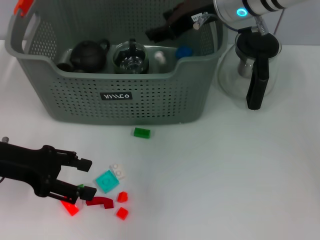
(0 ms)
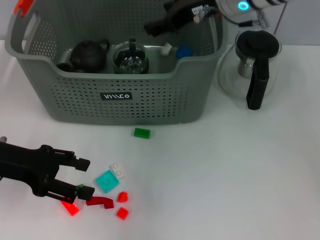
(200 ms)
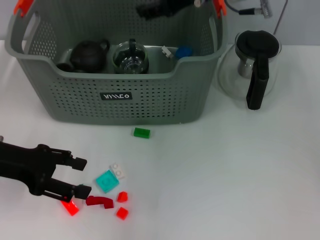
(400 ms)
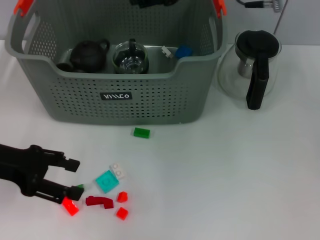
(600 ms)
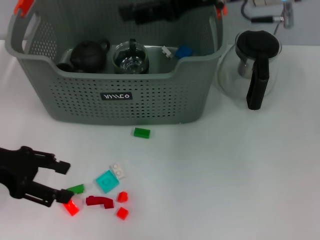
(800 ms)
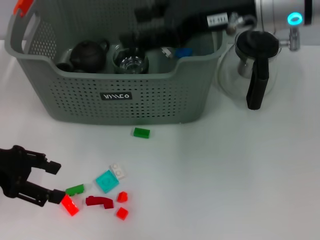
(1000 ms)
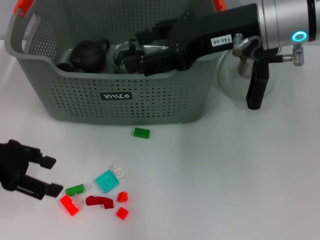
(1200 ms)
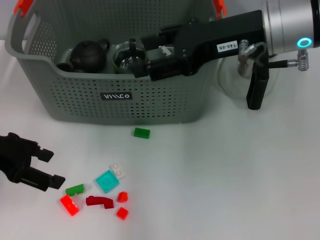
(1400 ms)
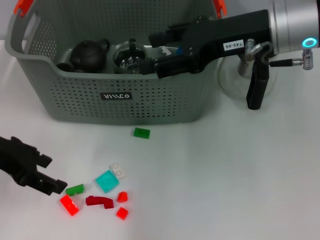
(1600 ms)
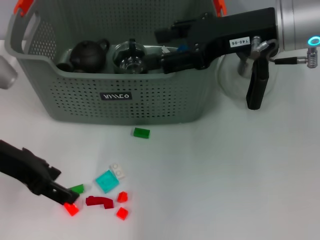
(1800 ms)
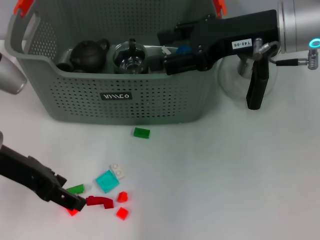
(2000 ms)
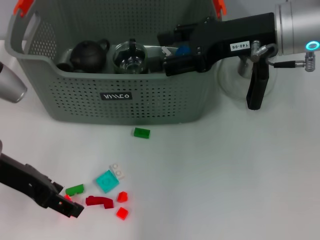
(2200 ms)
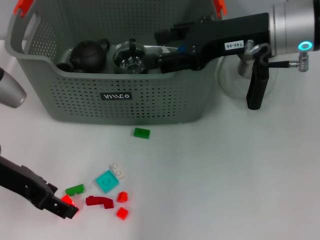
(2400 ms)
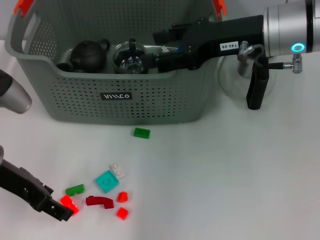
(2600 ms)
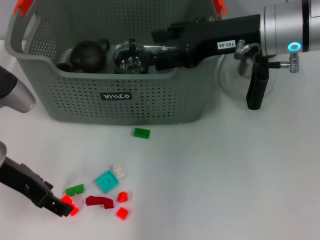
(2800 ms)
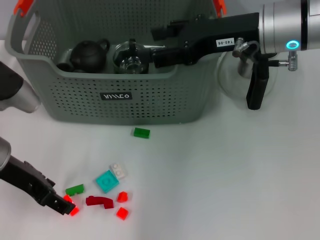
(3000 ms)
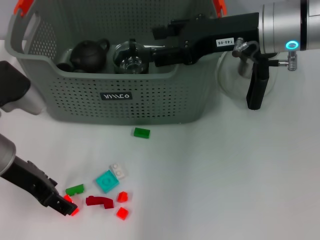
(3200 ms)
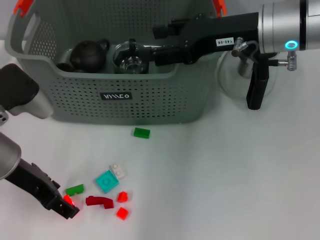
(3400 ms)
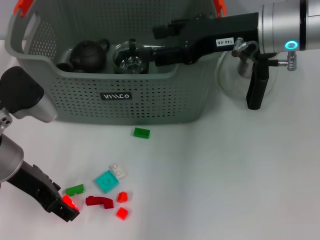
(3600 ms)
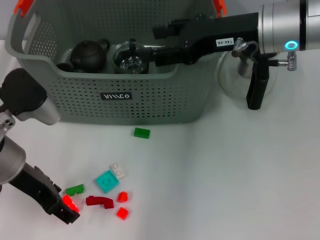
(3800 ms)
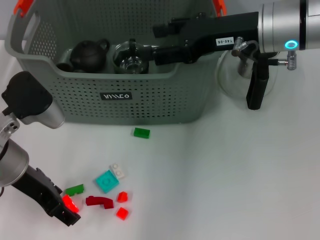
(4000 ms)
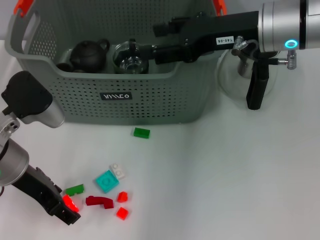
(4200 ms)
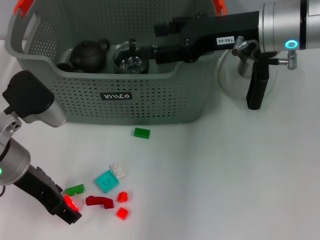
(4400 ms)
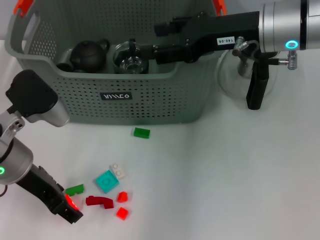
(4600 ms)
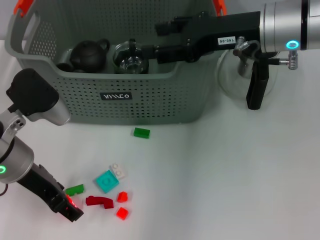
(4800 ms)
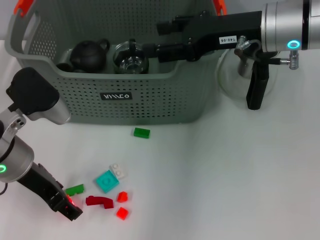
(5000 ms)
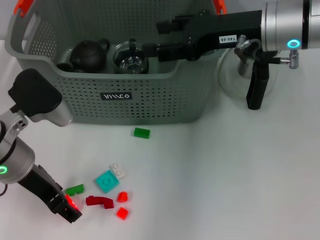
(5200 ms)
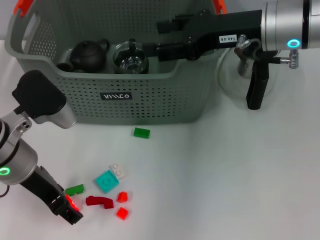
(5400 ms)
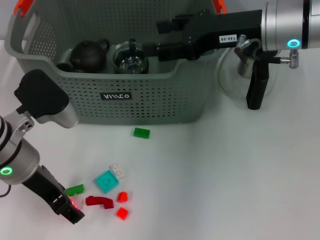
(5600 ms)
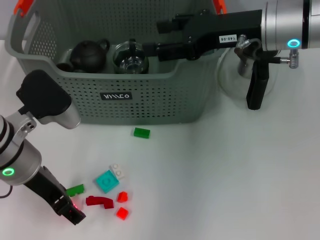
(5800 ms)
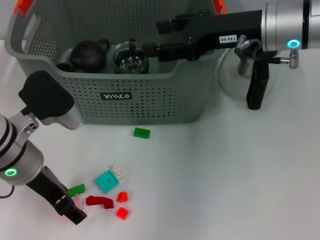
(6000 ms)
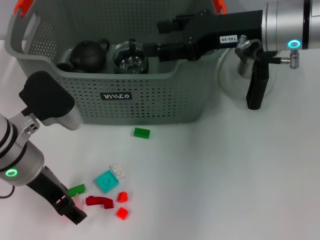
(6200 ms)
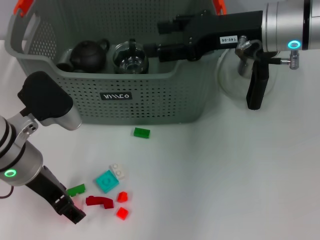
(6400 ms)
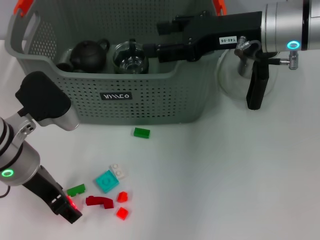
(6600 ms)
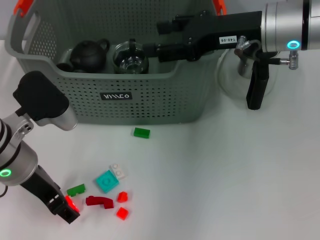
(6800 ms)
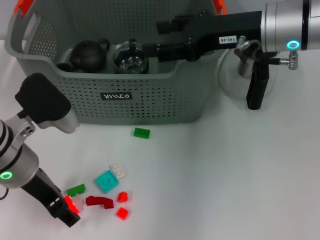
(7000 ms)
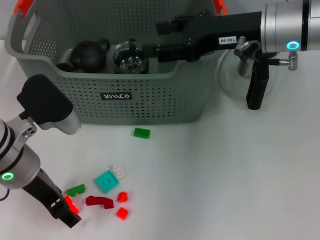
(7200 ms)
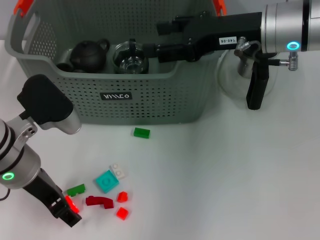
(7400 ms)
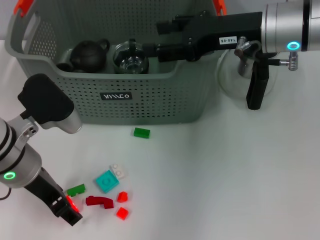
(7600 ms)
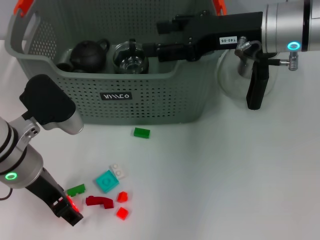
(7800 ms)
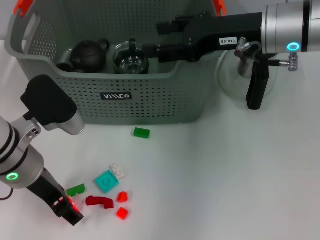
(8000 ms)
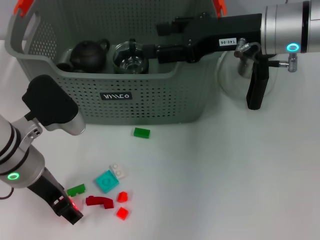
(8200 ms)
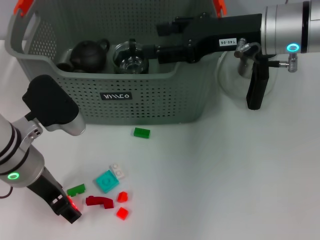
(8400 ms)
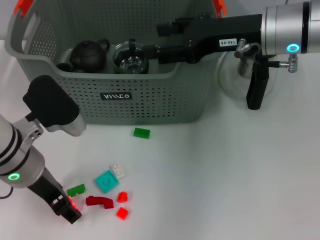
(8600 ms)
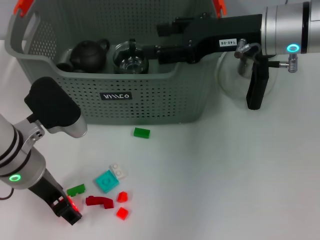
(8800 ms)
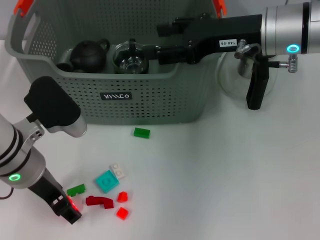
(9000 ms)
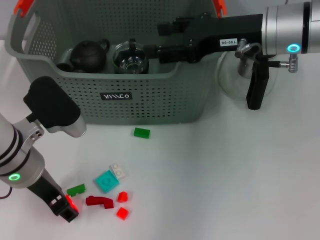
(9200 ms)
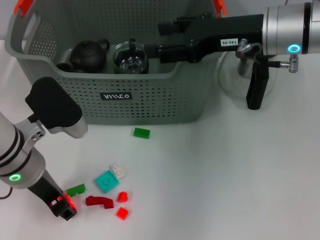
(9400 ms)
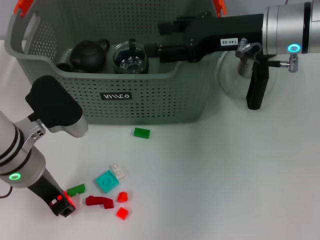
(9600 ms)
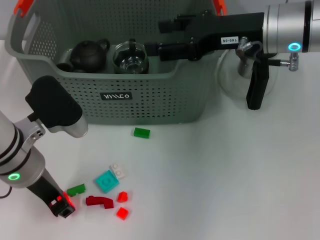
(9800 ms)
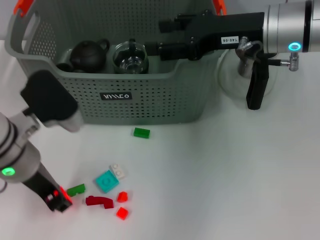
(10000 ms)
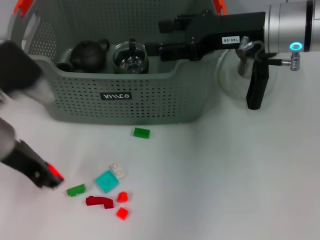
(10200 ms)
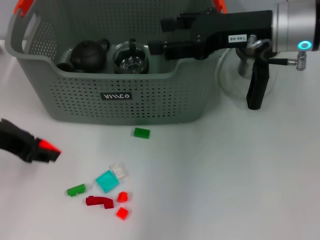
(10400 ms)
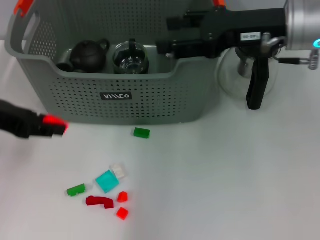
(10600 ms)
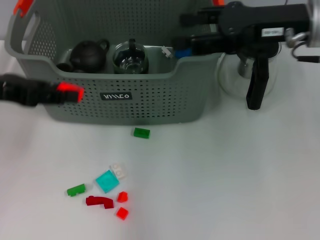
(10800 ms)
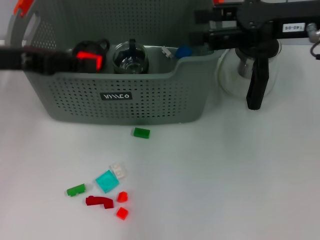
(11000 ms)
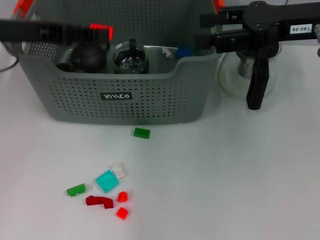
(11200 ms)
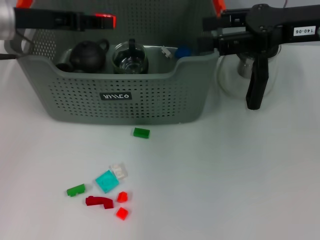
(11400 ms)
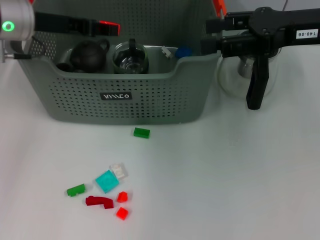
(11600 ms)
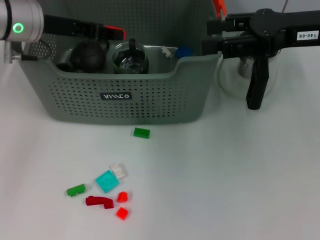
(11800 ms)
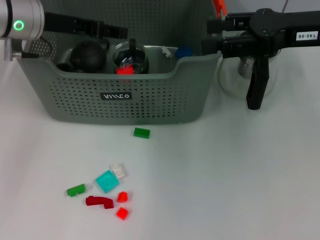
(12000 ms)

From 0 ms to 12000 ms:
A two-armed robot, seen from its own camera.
Task of the whole recording: pick up the teacup on the table and place it into the storage bin, pick up the block on the table and place it into the storage bin.
Step, from 400 ms to 10000 ms: Grasp the orange block with left gripper.
From 0 ms to 1600 ms: The left gripper shifts approximately 5 cm upward; the right gripper shifts about 10 cm backward and to the right.
From 1600 ms to 3000 ms: The left gripper changes place by some 5 cm.
From 3000 ms to 6000 ms: The grippers make only small movements.
From 6000 ms to 7600 ms: Both grippers stay put.
From 7600 ms to 9000 ms: Neither gripper changes place.
From 9000 ms to 10400 ms: The left gripper moves upward and to the left, roughly 10 cm, and closes its fingers.
From 10400 ms to 12000 ms: The left gripper travels forward by roughly 15 cm, while the right gripper goes roughly 5 cm to the right.

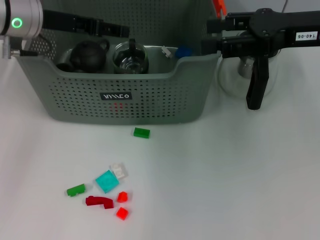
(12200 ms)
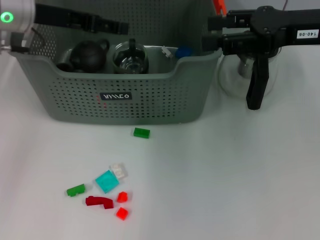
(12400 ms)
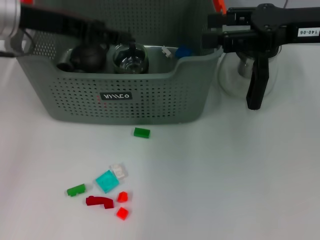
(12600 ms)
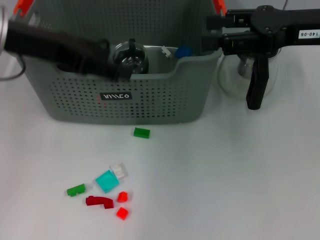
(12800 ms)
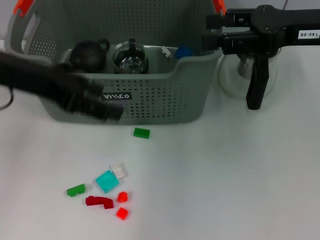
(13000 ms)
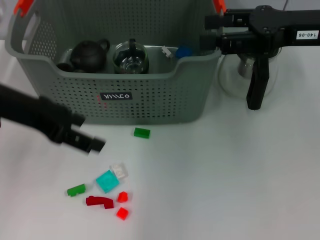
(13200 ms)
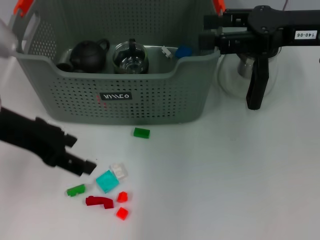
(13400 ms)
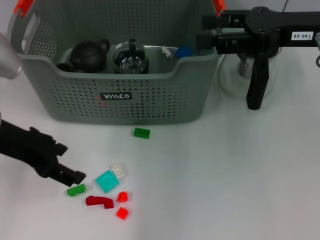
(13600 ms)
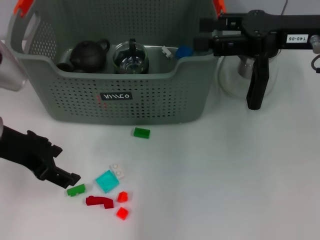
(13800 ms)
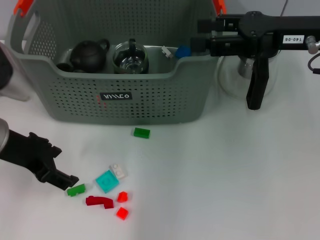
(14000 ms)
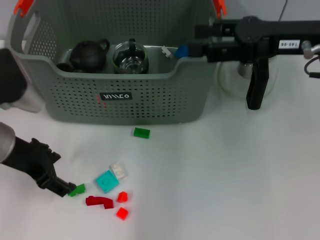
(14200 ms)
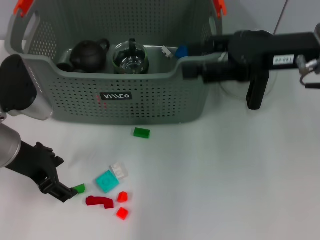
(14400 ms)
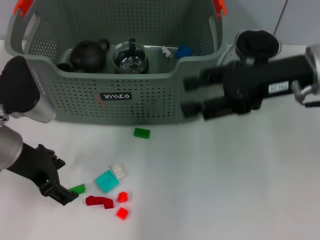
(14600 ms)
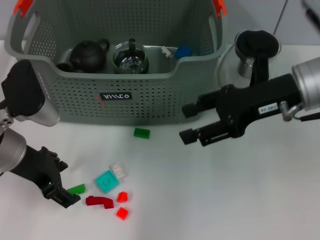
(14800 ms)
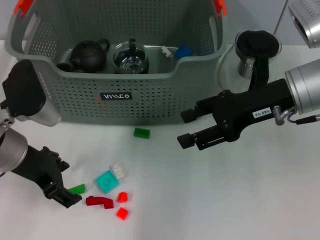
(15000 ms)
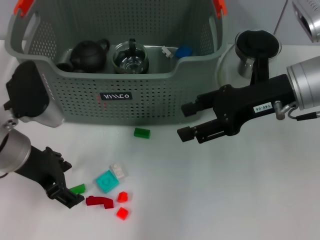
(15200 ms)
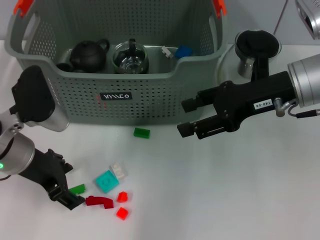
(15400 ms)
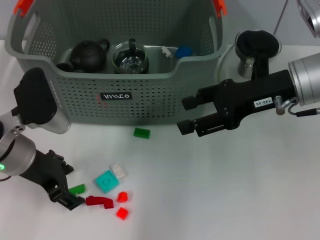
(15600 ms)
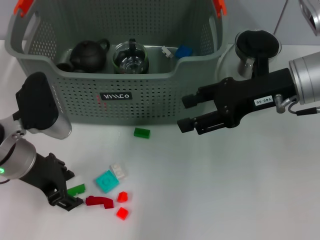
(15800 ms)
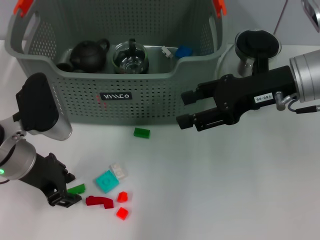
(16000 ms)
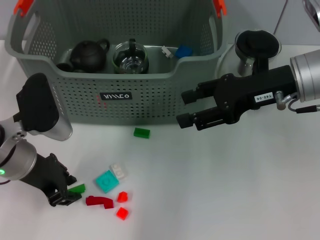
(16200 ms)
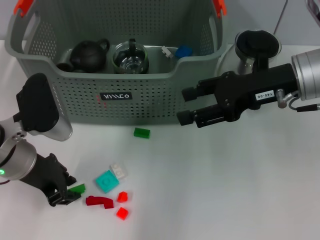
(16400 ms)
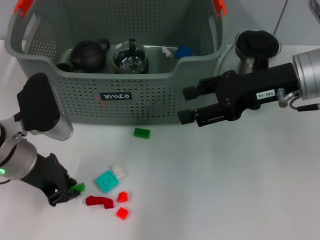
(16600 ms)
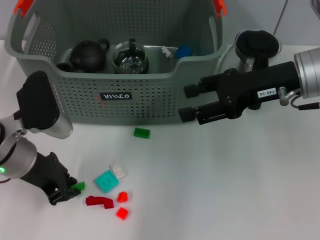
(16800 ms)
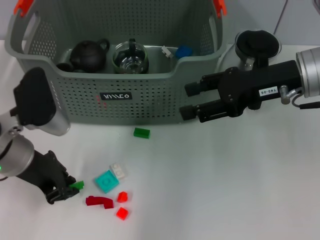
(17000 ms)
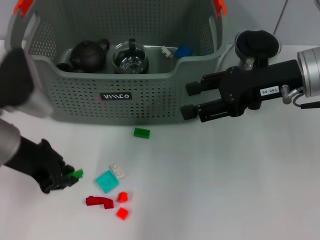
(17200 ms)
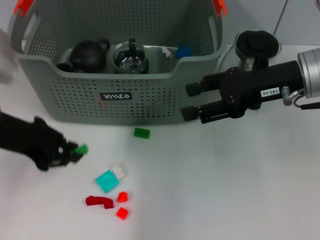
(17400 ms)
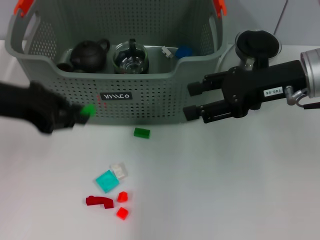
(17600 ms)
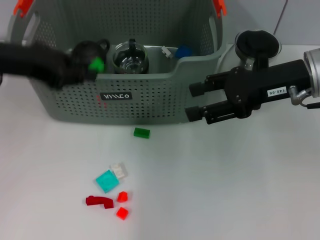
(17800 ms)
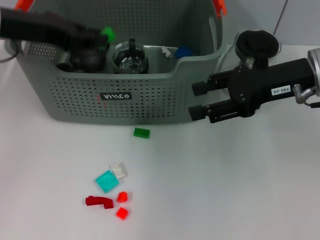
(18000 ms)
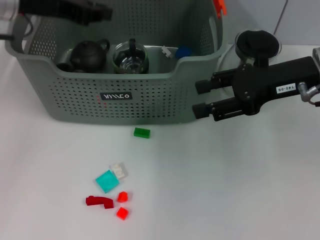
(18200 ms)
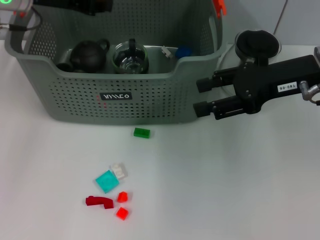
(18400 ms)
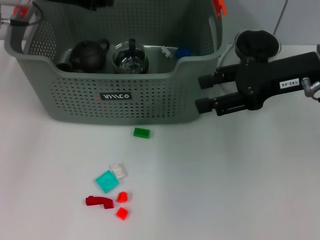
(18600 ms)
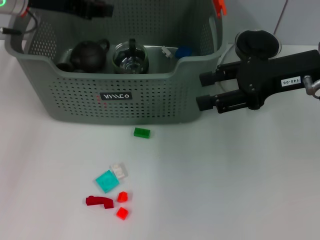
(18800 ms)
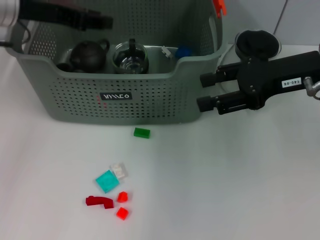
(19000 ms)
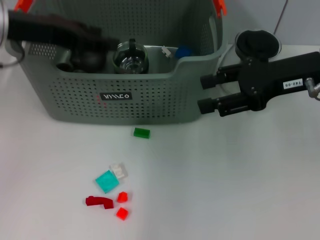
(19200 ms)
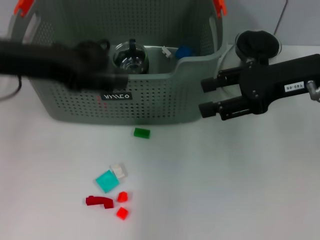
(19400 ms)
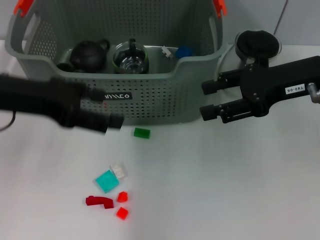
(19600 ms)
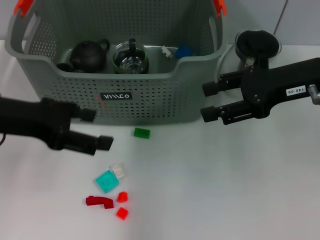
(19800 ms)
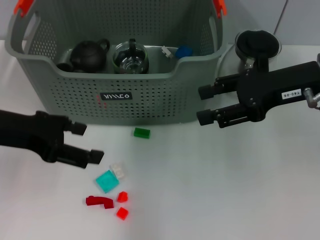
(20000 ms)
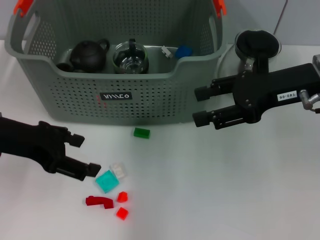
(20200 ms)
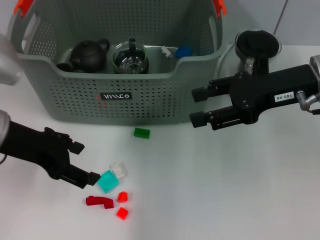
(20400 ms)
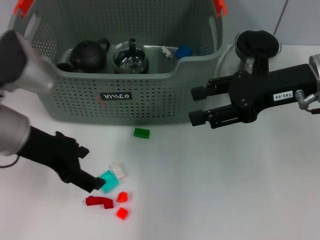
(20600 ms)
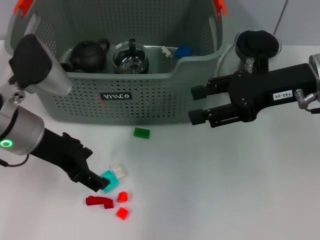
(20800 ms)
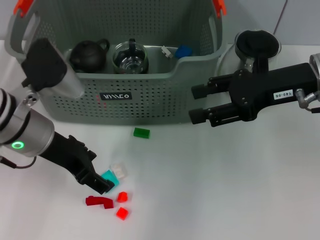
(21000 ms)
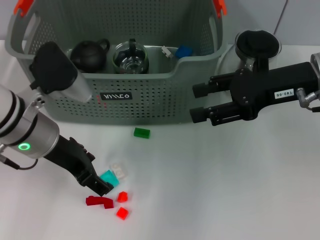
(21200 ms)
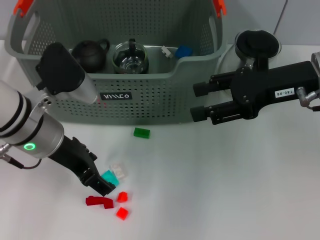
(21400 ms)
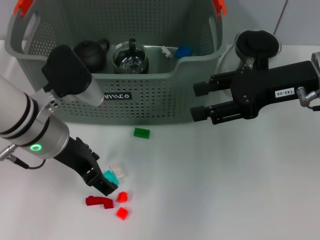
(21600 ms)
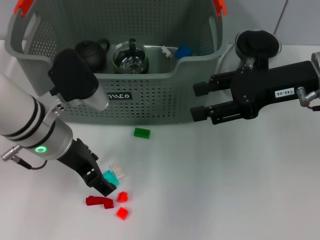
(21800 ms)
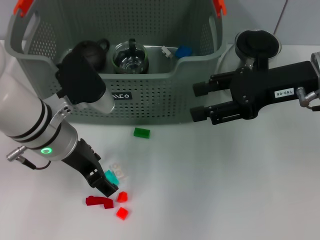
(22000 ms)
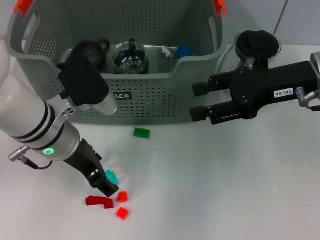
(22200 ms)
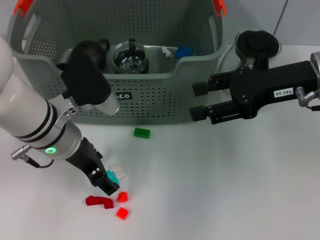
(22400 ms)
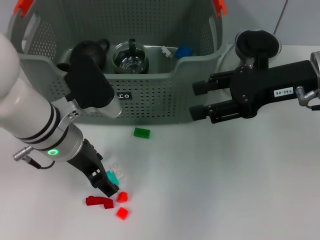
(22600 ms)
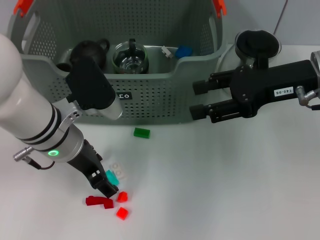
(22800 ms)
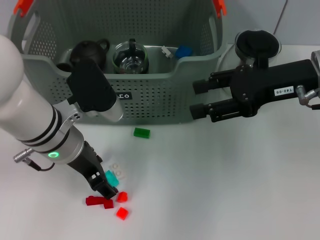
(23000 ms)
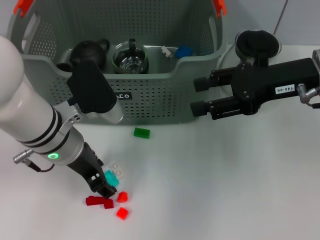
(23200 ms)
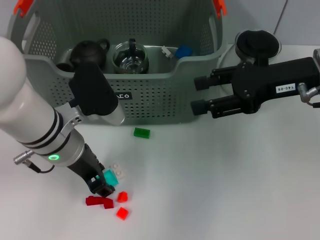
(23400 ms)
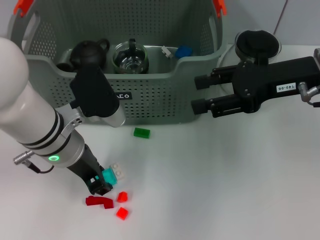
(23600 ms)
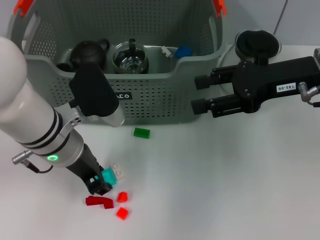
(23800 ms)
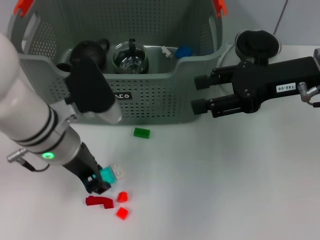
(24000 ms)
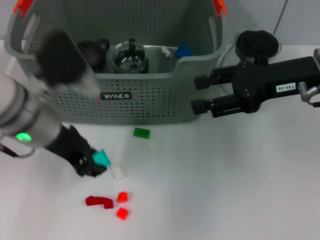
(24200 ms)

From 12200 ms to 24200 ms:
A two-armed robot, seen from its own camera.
Task of the whole recording: pick up the teacup on the table and place it into the storage bin, pick up the block on the table and place it into the storage bin.
Step, from 12400 ms to 17000 ms: Grasp the green block with left gripper.
Step, from 17200 ms to 18000 ms: Place the green block in the storage box with left gripper.
Step, from 18400 ms to 24000 ms: Grasp the light blue block with left gripper.
From 12200 ms to 13800 ms: The left gripper goes some 10 cm backward.
From 13800 ms to 15200 ms: The right gripper shifts by about 5 cm.
From 15200 ms to 16600 ms: The left gripper closes.
From 16600 ms to 18200 ms: The left gripper heads upward and forward, covering about 15 cm.
From 18200 ms to 19800 ms: The left gripper is displaced backward by about 10 cm, and opens up.
From 19800 ms to 21200 ms: The left gripper goes about 10 cm to the right and downward.
From 21200 ms to 22600 ms: The grippers make only small movements.
From 22600 ms to 24200 ms: The left gripper closes its fingers.
